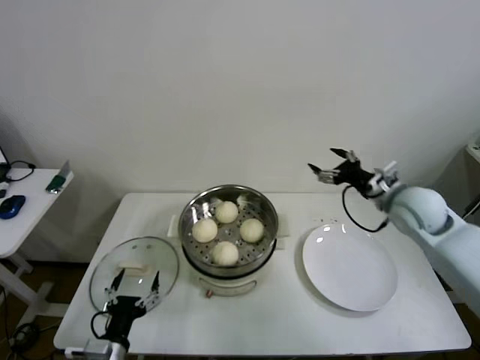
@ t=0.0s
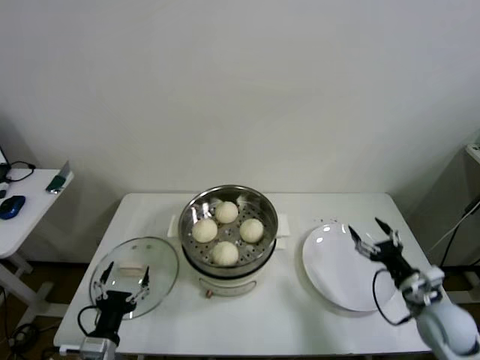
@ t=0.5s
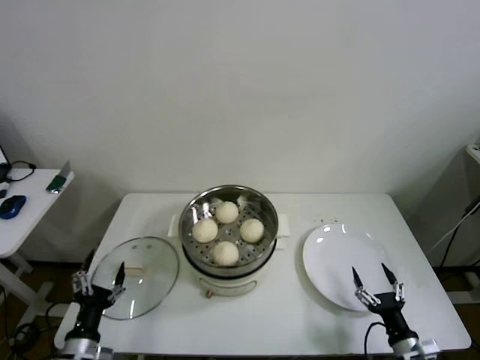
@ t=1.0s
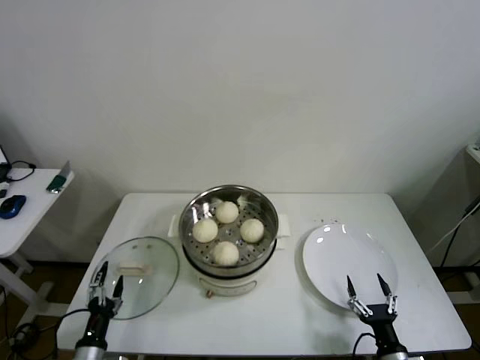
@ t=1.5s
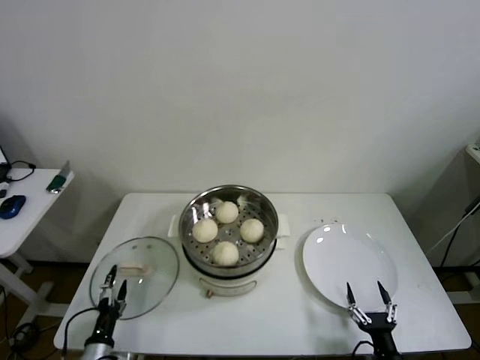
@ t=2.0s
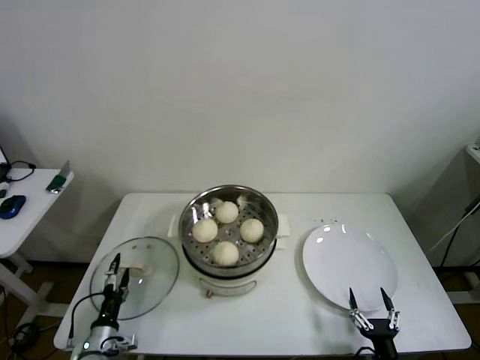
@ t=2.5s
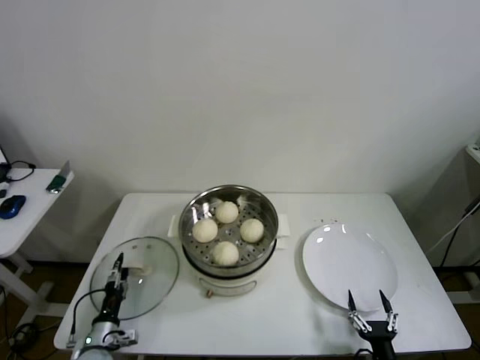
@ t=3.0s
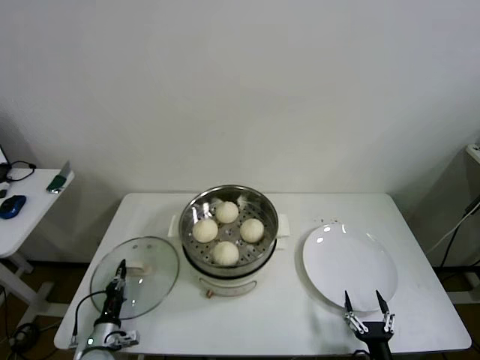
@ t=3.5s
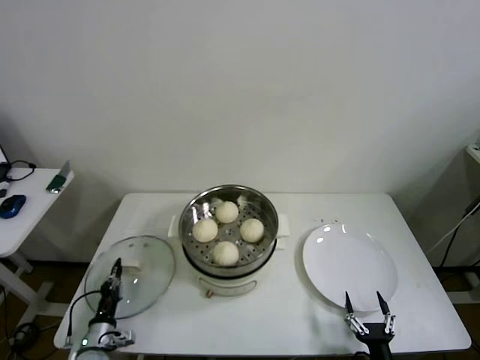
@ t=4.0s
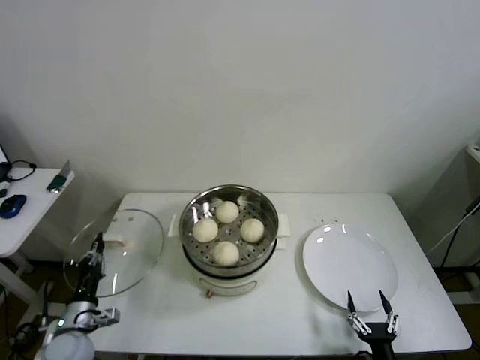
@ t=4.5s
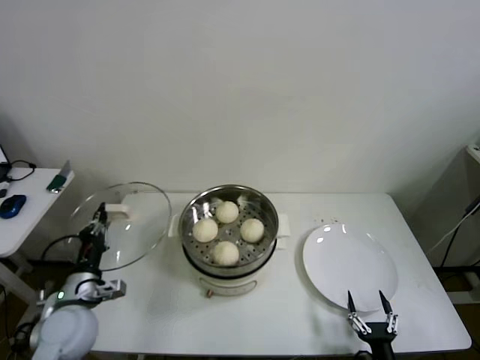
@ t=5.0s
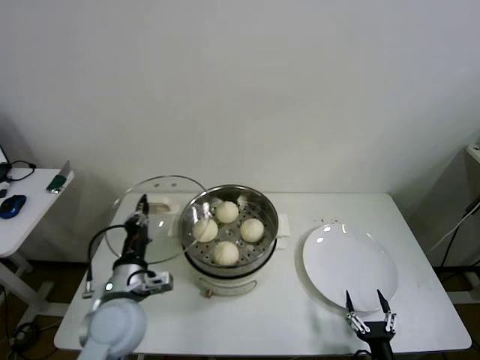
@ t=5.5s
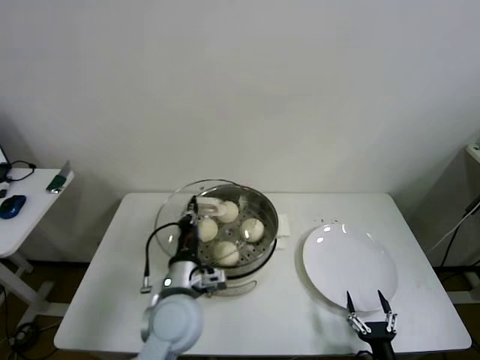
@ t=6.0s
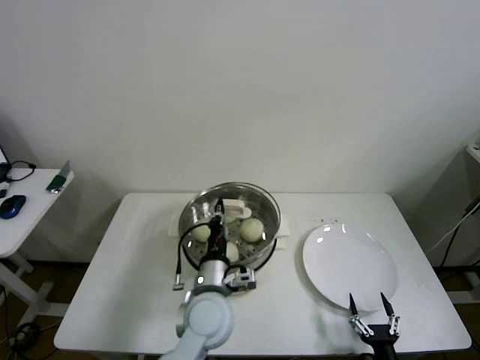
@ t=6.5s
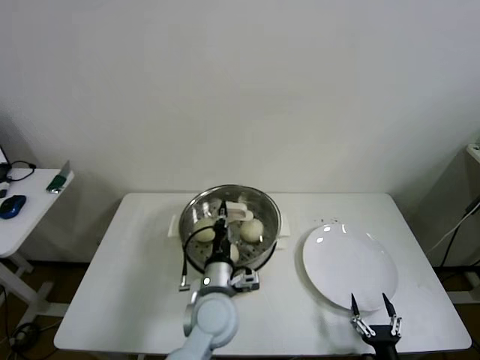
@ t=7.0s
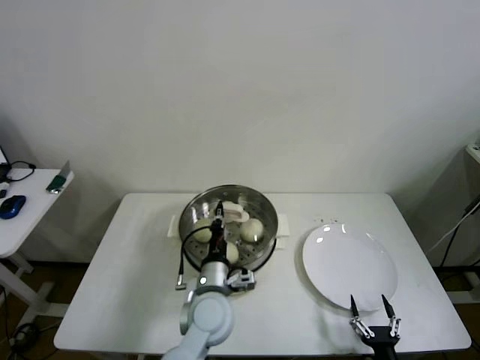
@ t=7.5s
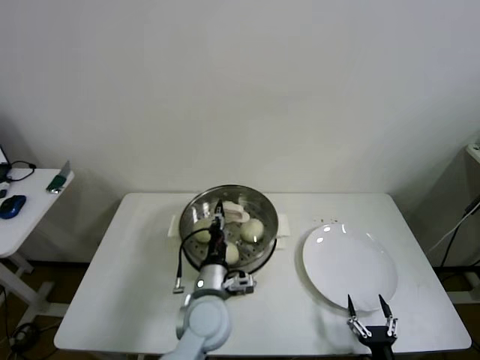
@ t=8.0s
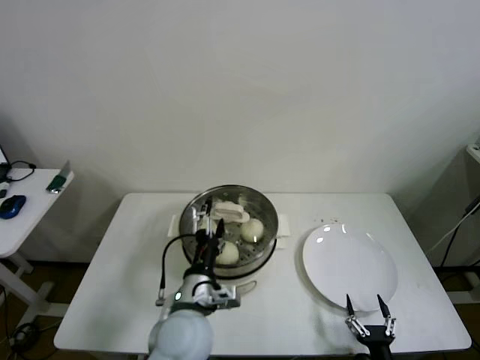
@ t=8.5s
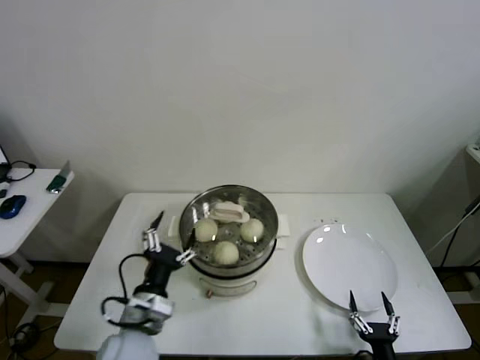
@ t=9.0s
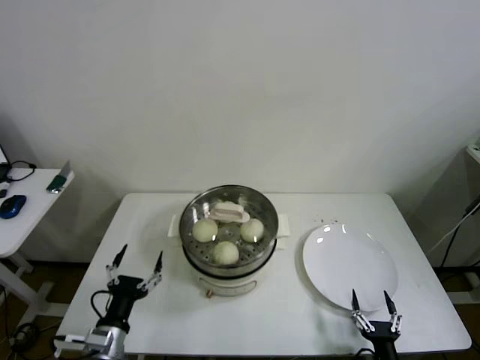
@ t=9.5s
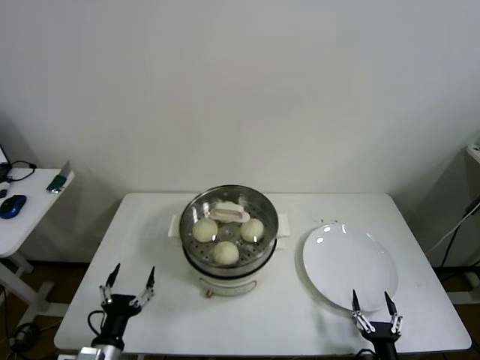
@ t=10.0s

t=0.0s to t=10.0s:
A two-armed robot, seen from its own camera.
Step, t=0.0s to t=3.0s: Grasp the pot lid with left gripper.
Step, t=3.5s to t=7.5s: Place the pot lid on the steamer with left gripper.
t=0.0s to t=2.0s: The right gripper is displaced downward and backward by approximately 40 cm. Meanwhile the left gripper is displaced downward and to the left by about 15 cm.
t=2.0s to t=4.0s: The left gripper goes approximately 5 cm forward, and closes.
t=4.0s to t=6.0s: The left gripper shifts some 35 cm upward and to the right.
t=6.0s to t=8.0s: The left gripper heads to the right, covering about 5 cm.
t=8.0s to t=10.0s: The left gripper moves to the left and backward, about 25 cm, and opens up.

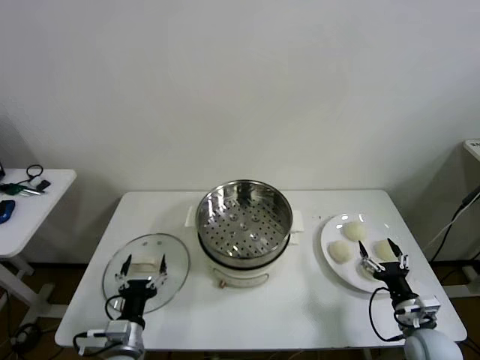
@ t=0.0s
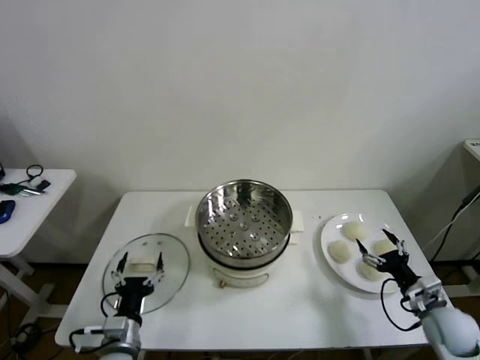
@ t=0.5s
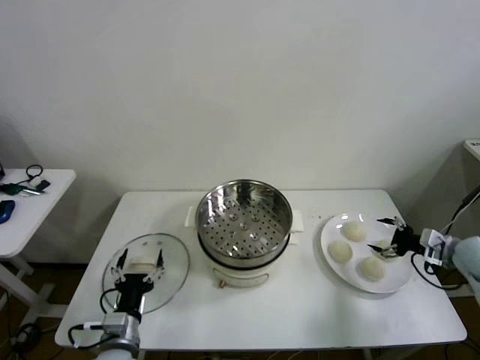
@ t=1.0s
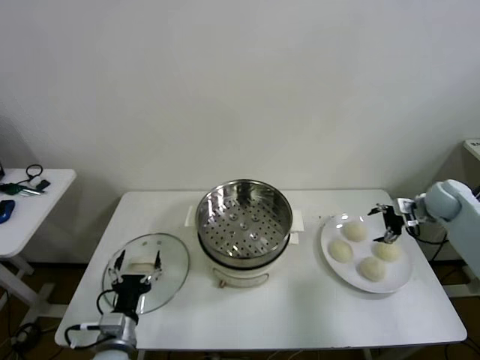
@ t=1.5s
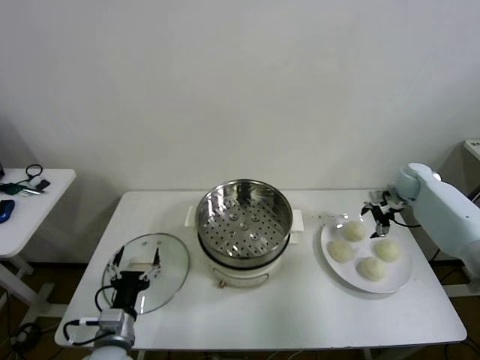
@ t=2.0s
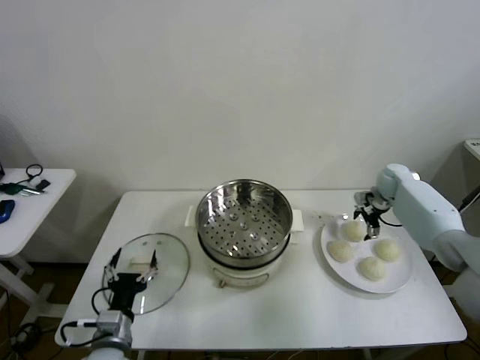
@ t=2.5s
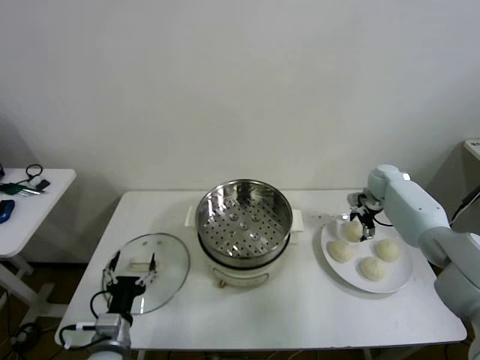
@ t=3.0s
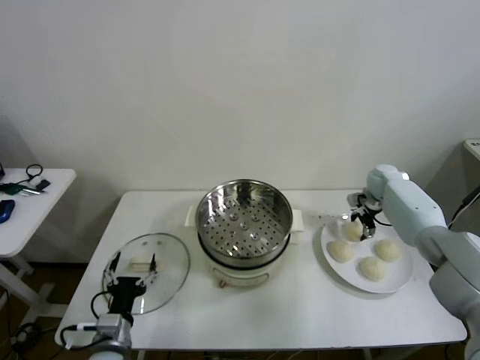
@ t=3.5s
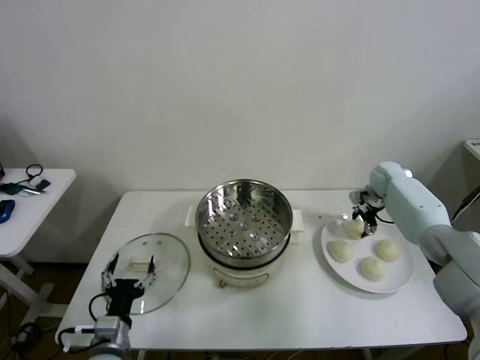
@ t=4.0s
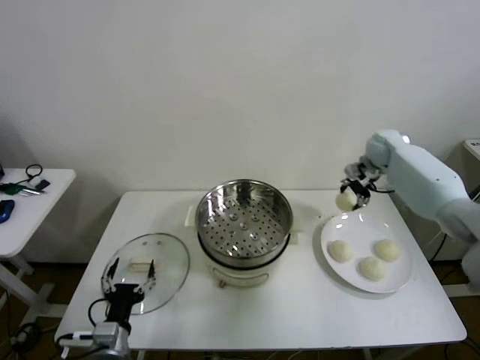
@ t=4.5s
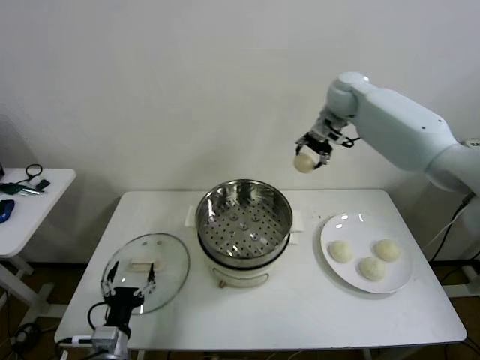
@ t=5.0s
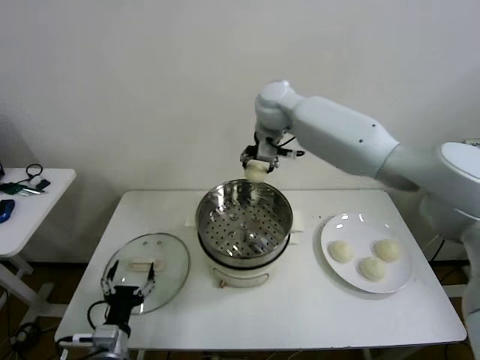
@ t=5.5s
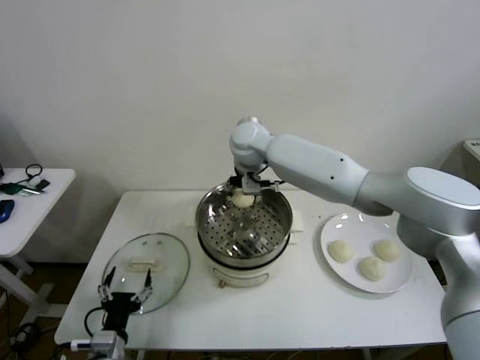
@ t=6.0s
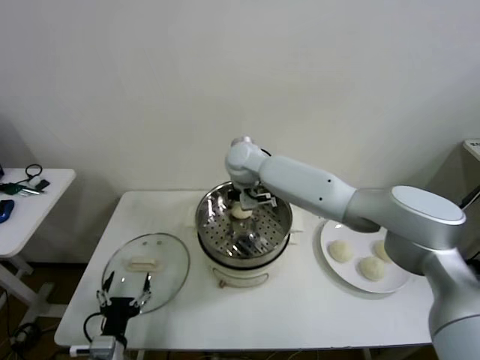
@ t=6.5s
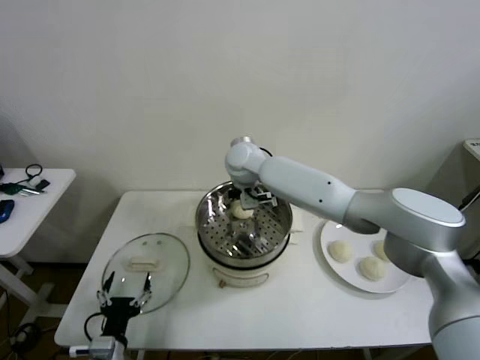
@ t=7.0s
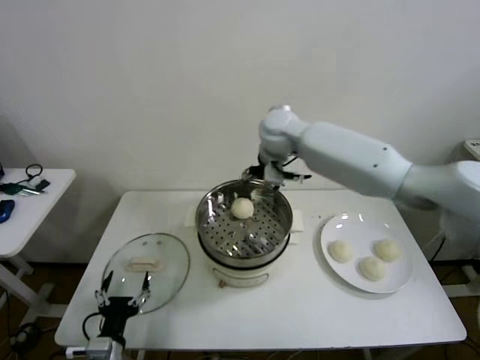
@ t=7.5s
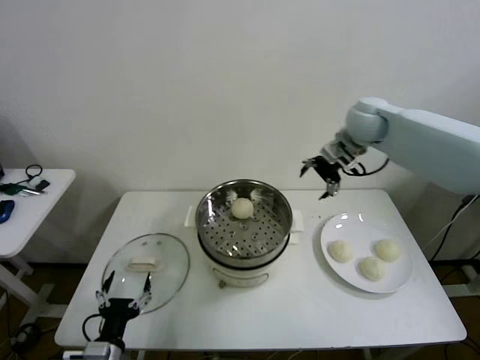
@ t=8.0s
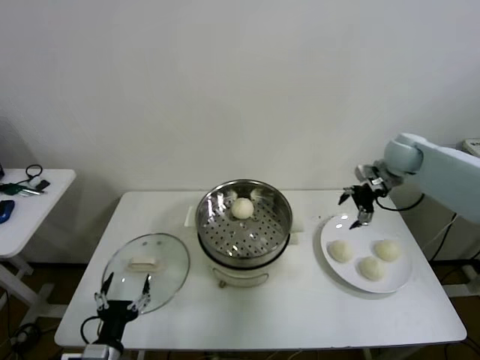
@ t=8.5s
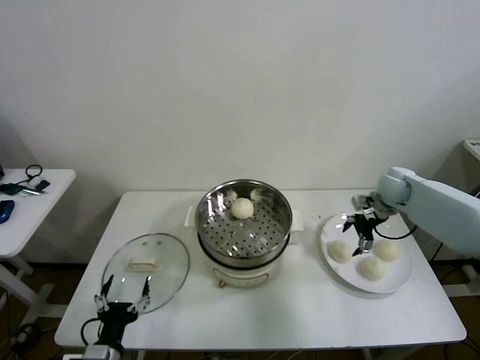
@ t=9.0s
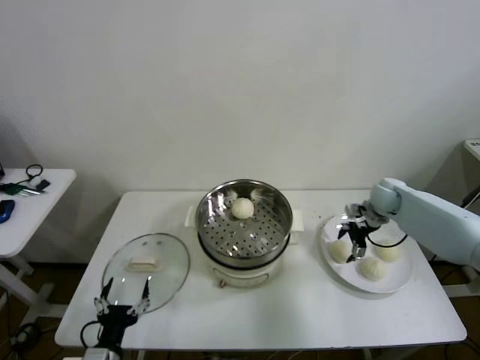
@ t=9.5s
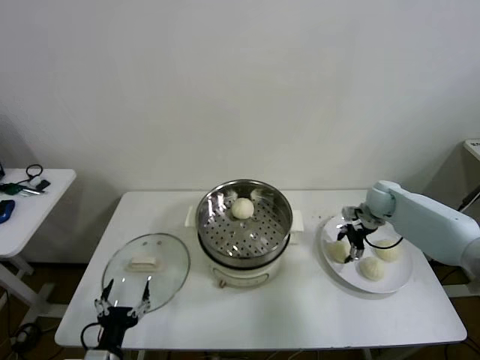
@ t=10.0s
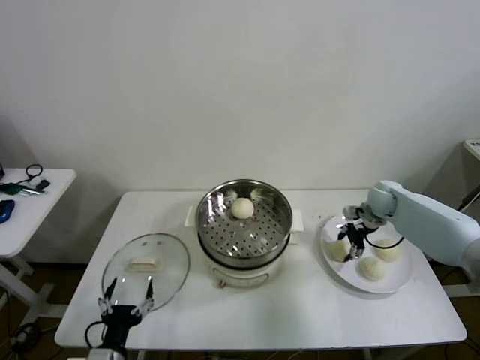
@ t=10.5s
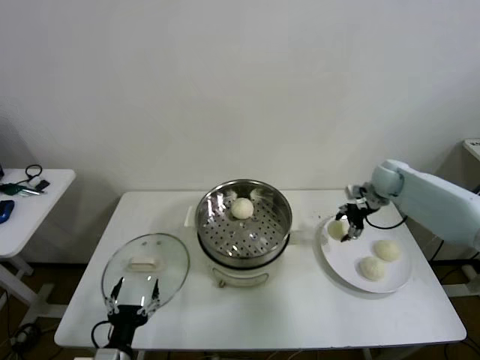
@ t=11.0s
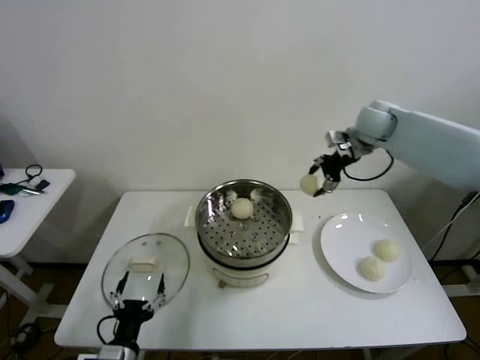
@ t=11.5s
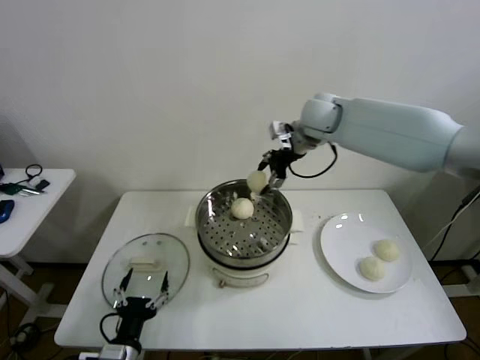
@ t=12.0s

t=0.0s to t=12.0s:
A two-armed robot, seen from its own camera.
Step, t=0.0s to t=3.5s: Grasp the baozi in the plate with right gripper.
Step, t=4.0s to t=6.5s: Place the baozi on the steamer with right gripper.
Step, t=7.0s to t=10.0s: Grasp the baozi in the plate with right gripper.
t=2.0s to t=4.0s: The right gripper closes.
t=4.0s to t=6.0s: The right gripper goes approximately 40 cm to the left.
t=6.0s to t=8.0s: The right gripper moves to the right, roughly 30 cm, and opens.
t=8.0s to t=10.0s: The right gripper travels downward by approximately 25 cm, and closes.
t=10.0s to t=12.0s: The right gripper moves upward and to the left, approximately 35 cm.

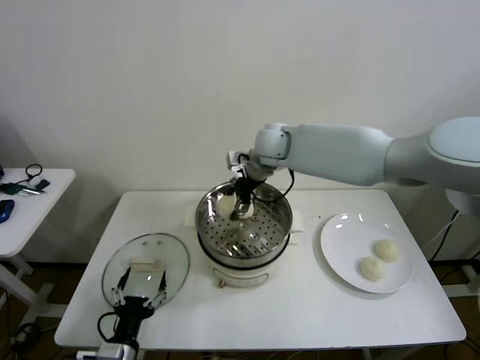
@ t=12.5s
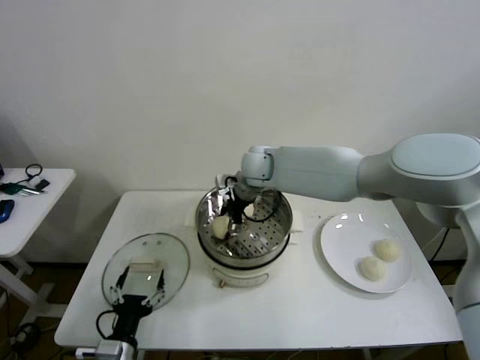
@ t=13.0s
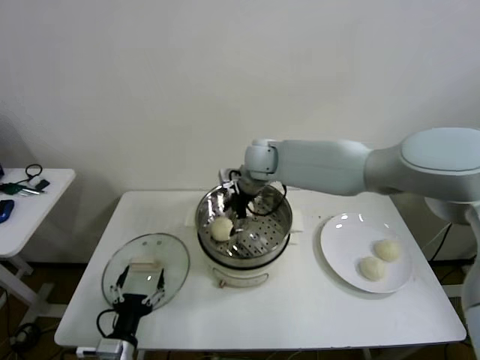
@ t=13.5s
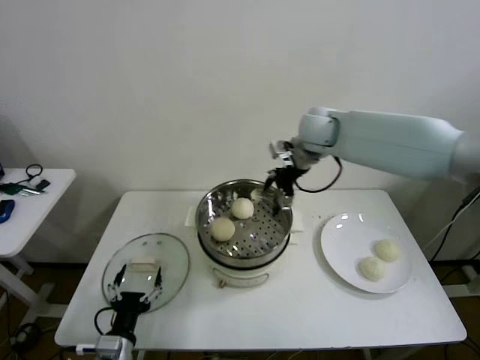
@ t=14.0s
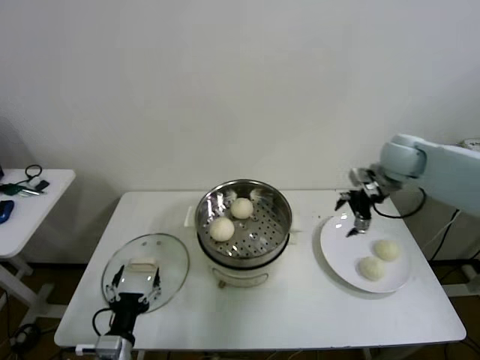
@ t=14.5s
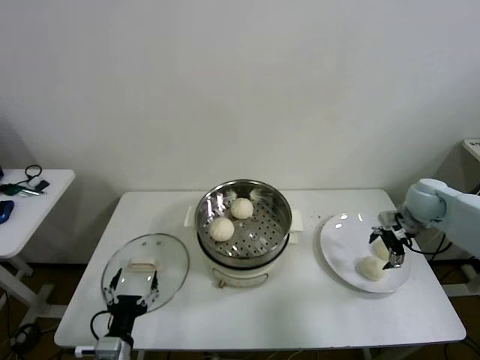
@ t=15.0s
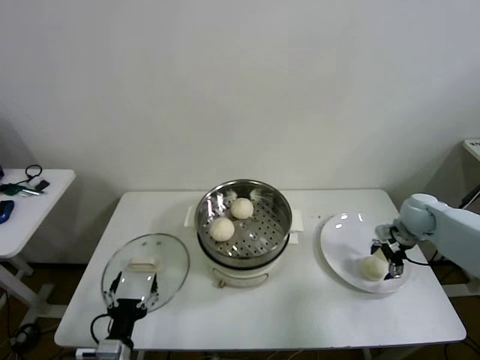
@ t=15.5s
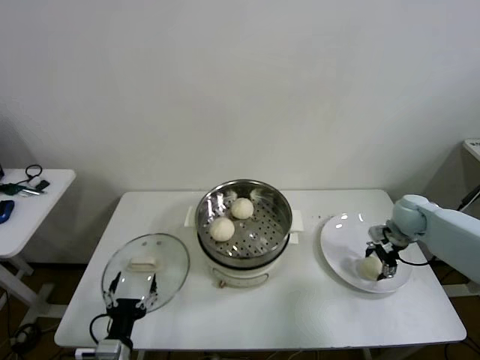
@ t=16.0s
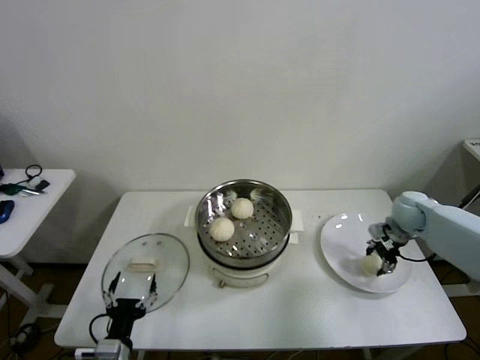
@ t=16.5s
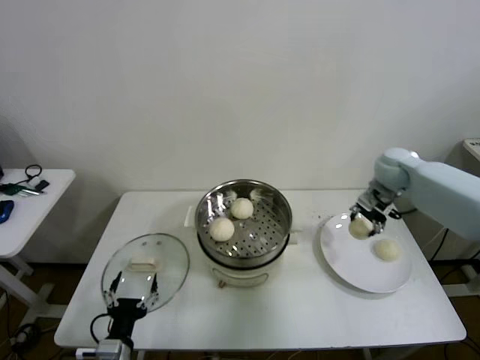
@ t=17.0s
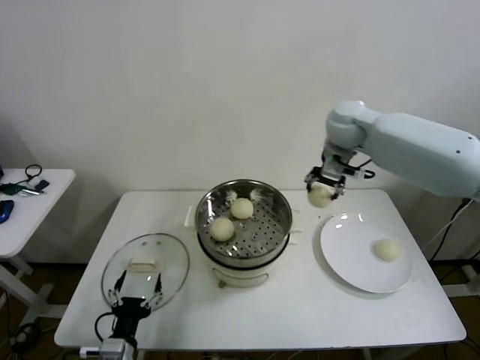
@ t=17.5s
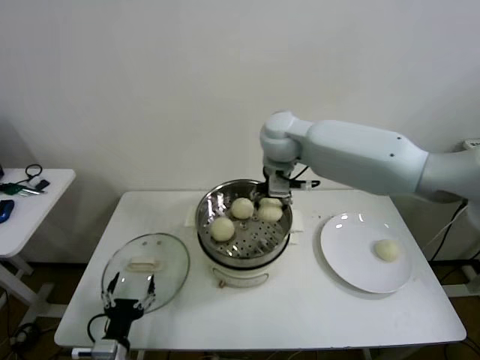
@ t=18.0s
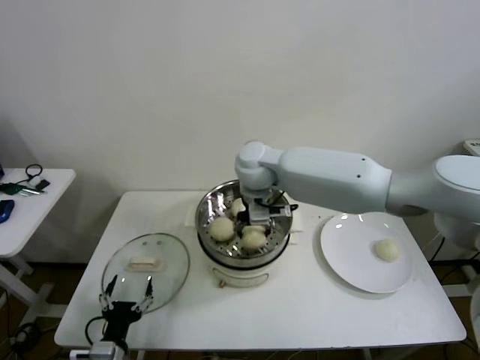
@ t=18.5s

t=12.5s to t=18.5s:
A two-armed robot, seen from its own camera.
Step, t=13.5s to t=16.0s: Grasp the baozi in the plate with right gripper.
t=12.5s to t=14.5s: The right gripper goes about 30 cm to the right, and opens.
t=14.5s to t=16.5s: The right gripper is displaced downward and to the right by some 15 cm, and closes up.
t=16.5s to t=18.5s: The right gripper moves to the left, about 40 cm.
